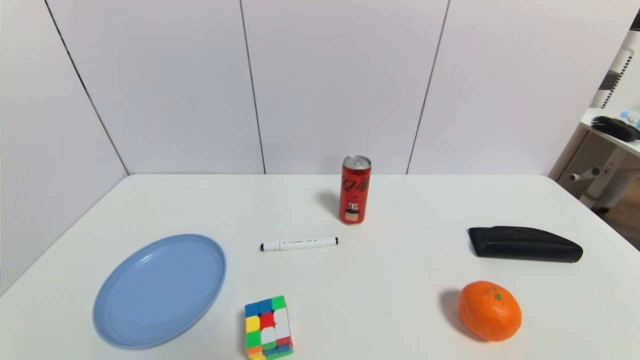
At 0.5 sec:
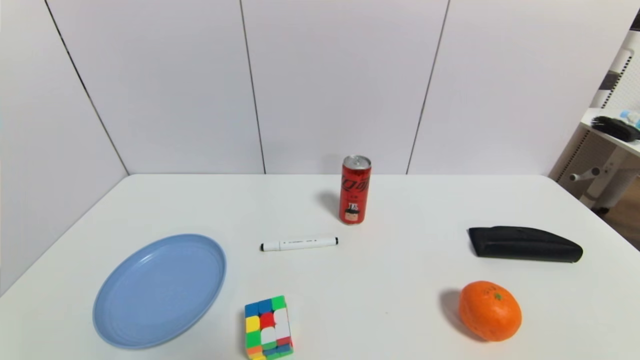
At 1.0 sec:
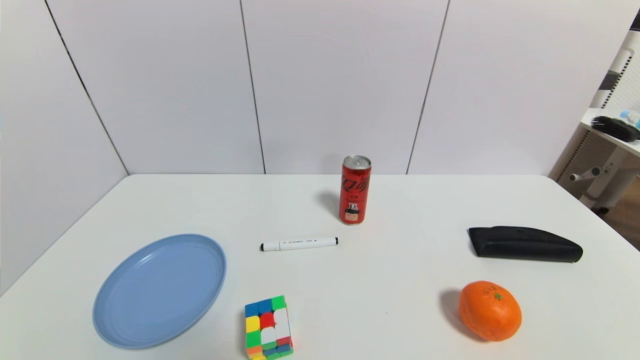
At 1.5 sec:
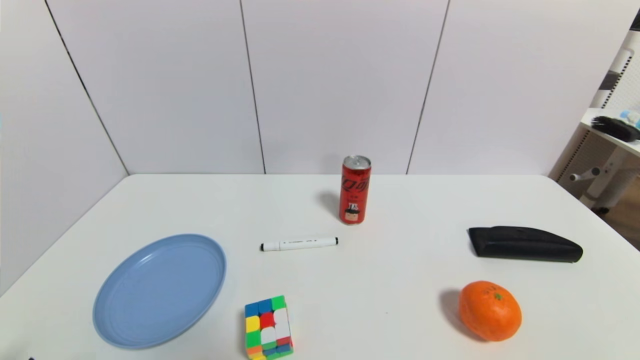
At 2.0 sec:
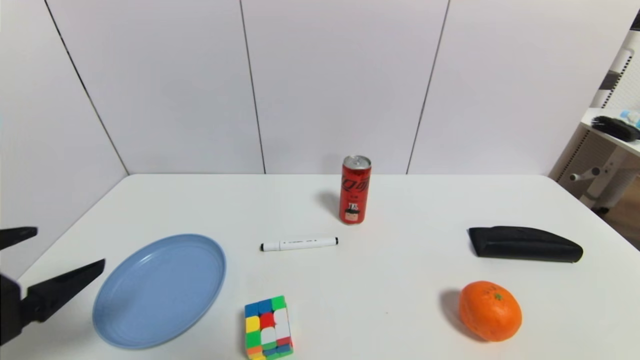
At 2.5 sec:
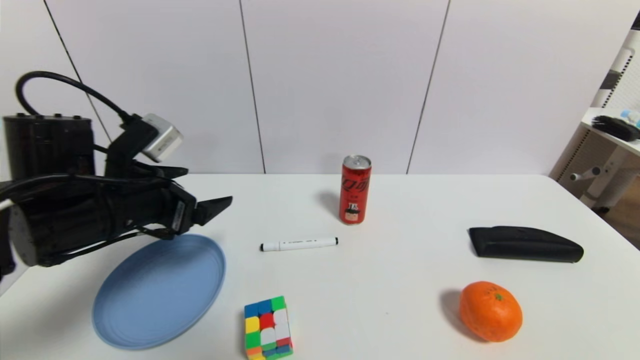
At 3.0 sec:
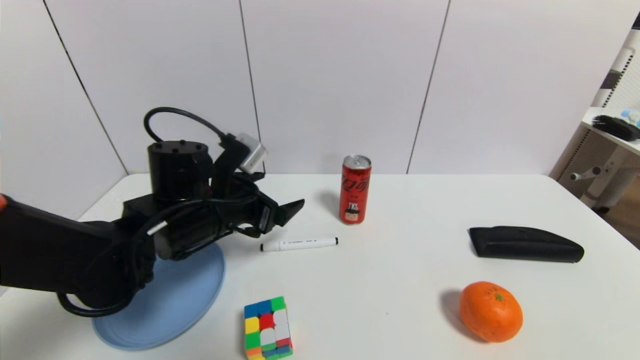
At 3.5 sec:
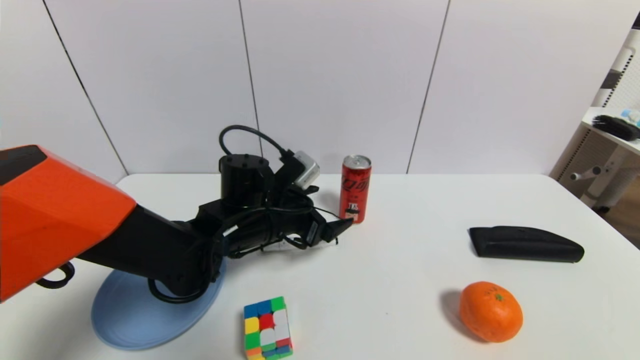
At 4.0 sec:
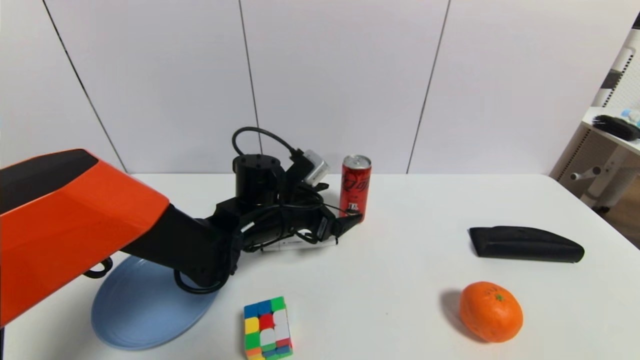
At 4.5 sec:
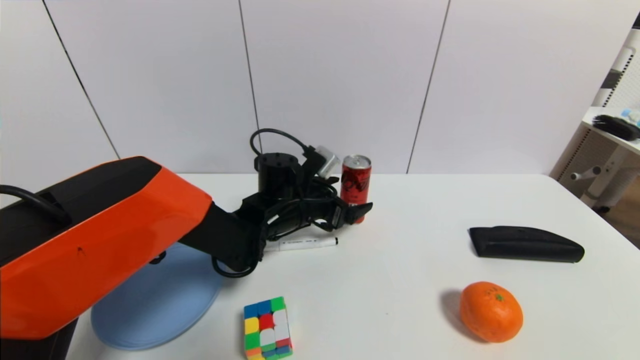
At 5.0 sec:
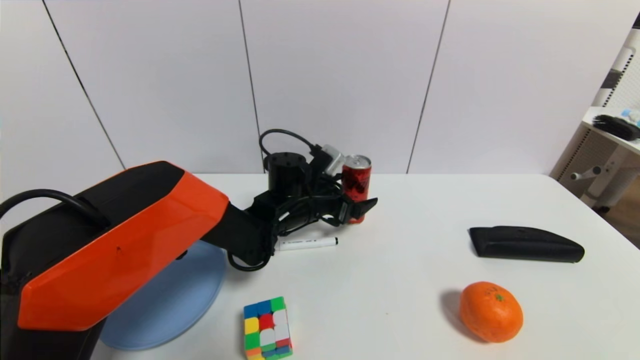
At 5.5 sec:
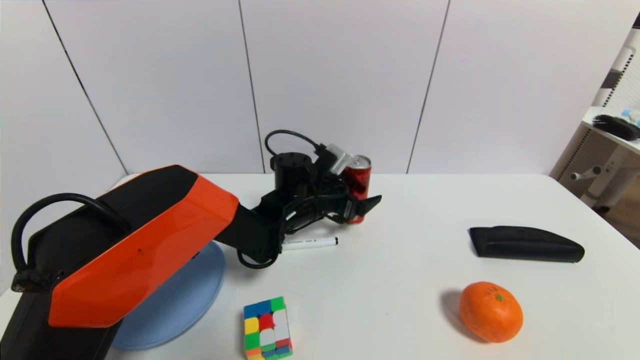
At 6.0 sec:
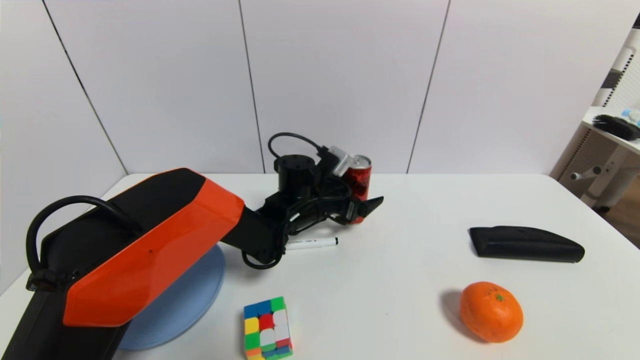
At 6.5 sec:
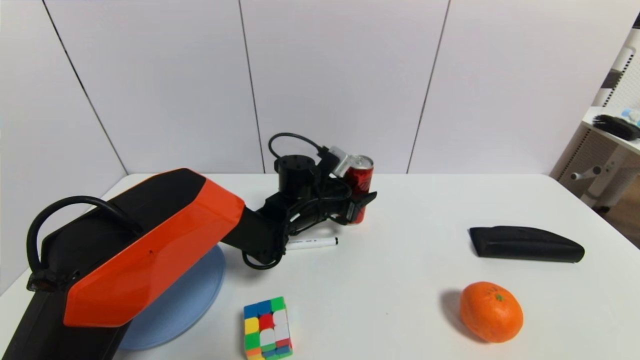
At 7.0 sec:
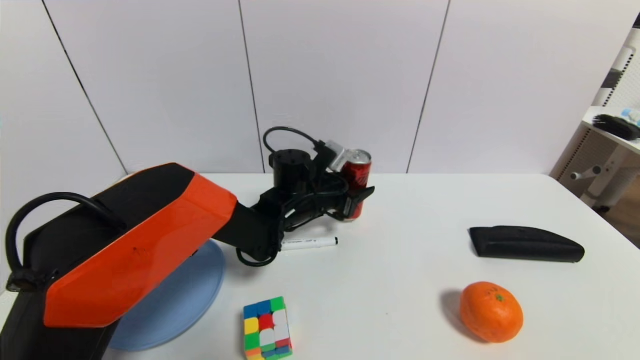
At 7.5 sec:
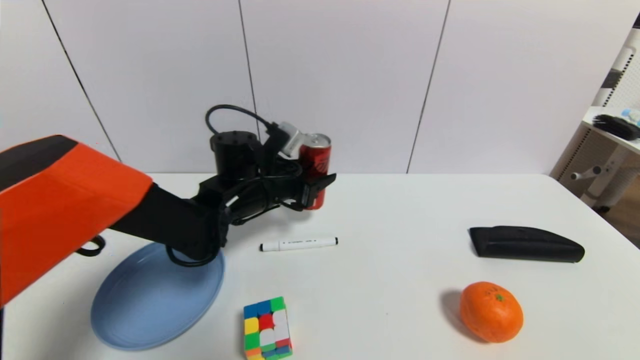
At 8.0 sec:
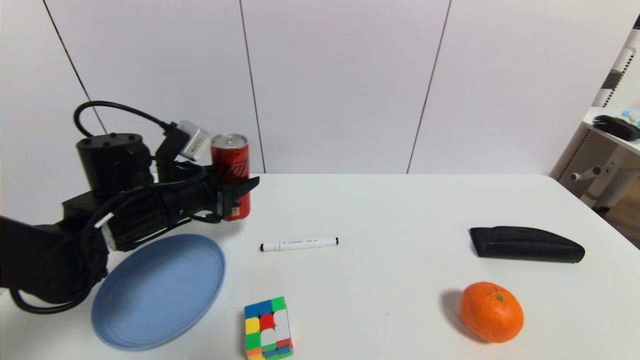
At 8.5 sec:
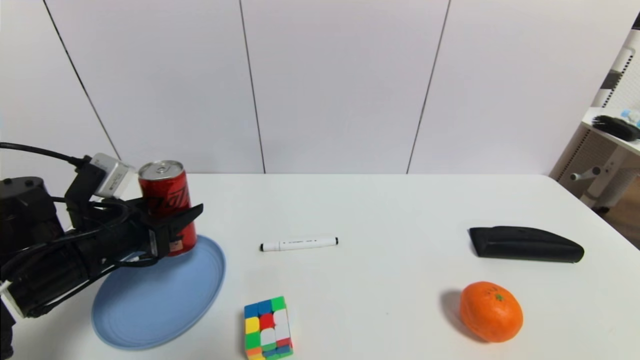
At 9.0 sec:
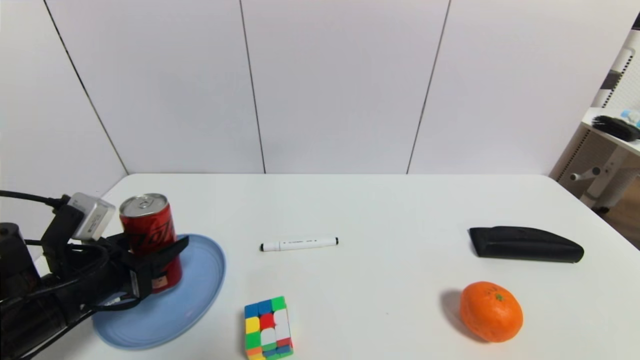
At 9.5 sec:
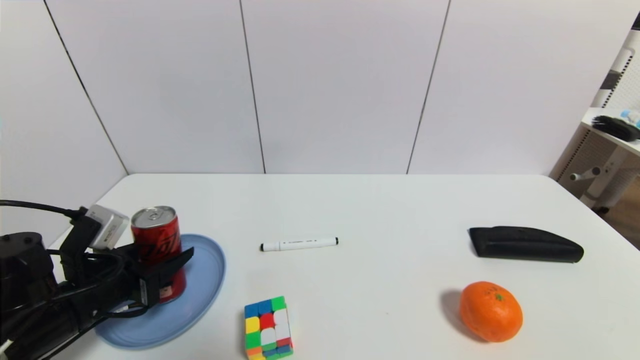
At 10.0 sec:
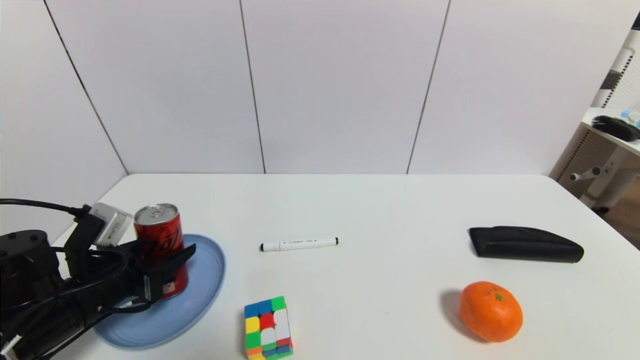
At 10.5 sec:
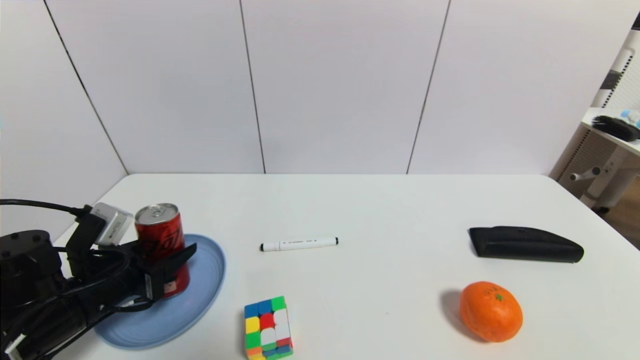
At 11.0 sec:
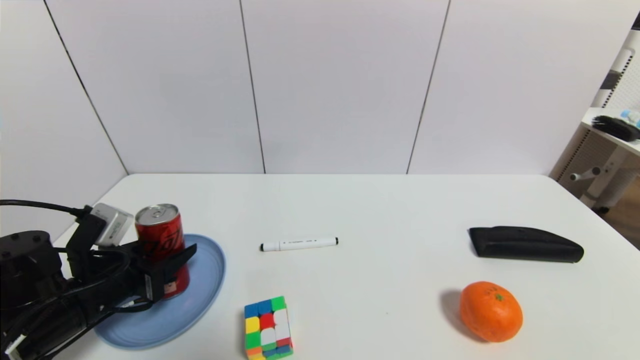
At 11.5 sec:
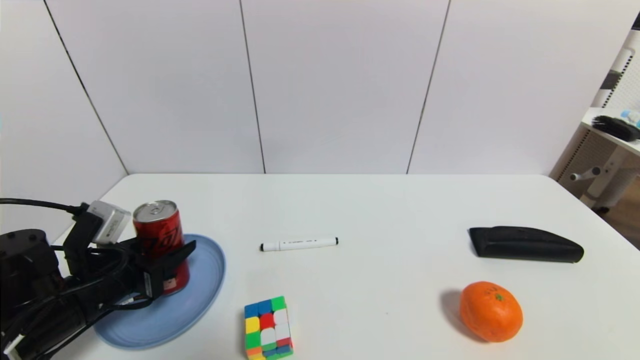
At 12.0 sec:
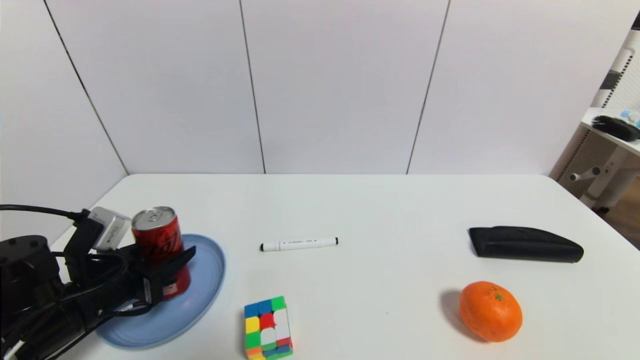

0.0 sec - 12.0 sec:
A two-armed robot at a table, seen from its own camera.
Task of the whole recording: use a gripper to pick the target object and place on the blue plate.
Step, 0.0 sec - 6.5 sec: Grasp the coke with the left gripper.
0.0 sec - 2.0 sec: The left gripper goes approximately 20 cm upward and forward.
2.0 sec - 4.0 sec: The left gripper goes about 35 cm forward, to the right and downward.
4.0 sec - 6.0 sec: The left gripper travels forward and to the right by some 10 cm.
6.0 sec - 8.0 sec: The left gripper is displaced to the left and backward by approximately 20 cm, and closes up.
8.0 sec - 10.0 sec: The left gripper moves backward, downward and to the left, approximately 15 cm.
10.0 sec - 12.0 sec: Neither gripper changes place.

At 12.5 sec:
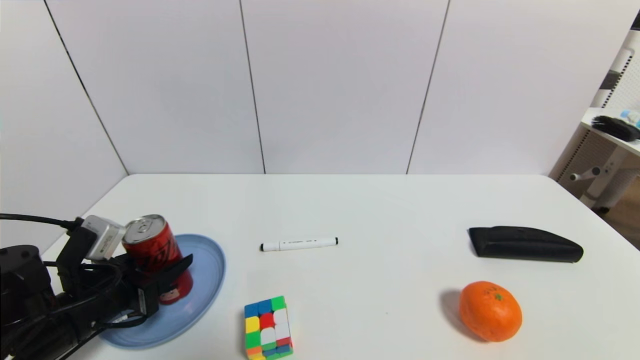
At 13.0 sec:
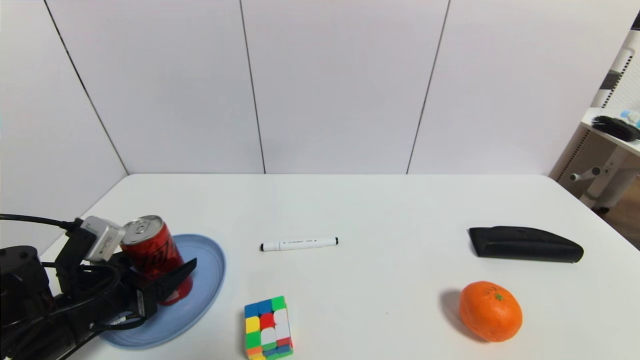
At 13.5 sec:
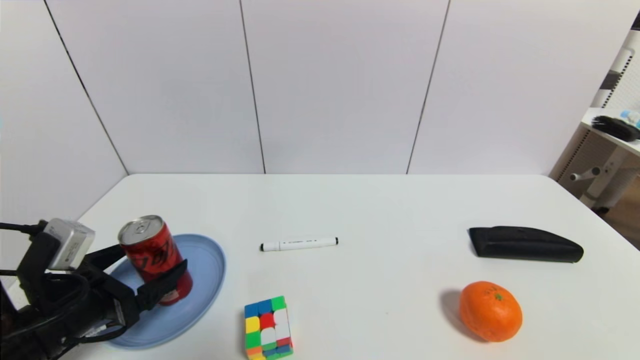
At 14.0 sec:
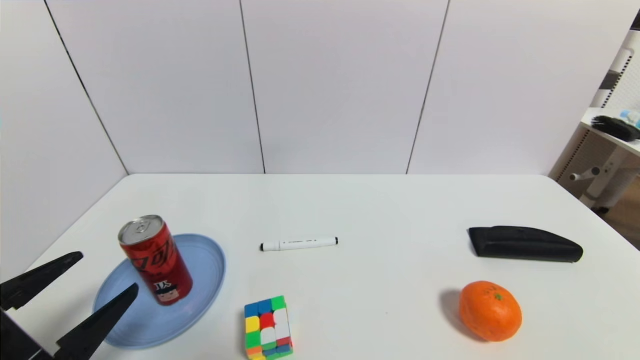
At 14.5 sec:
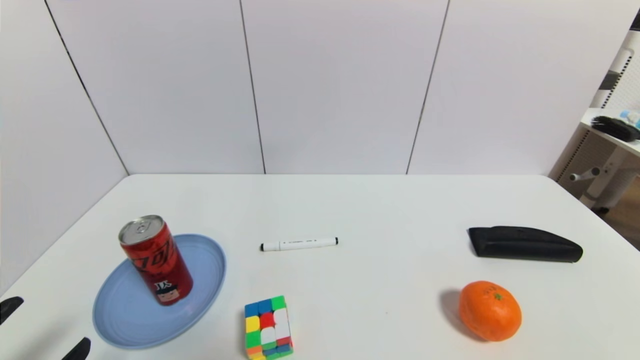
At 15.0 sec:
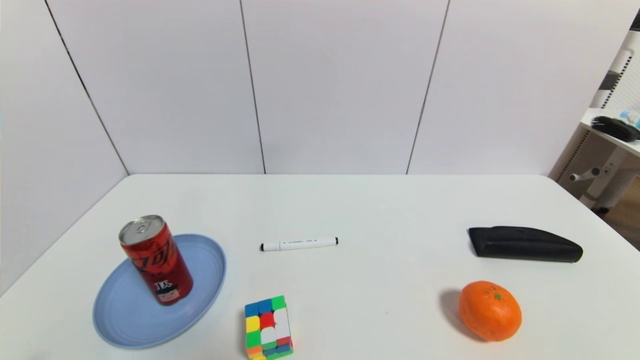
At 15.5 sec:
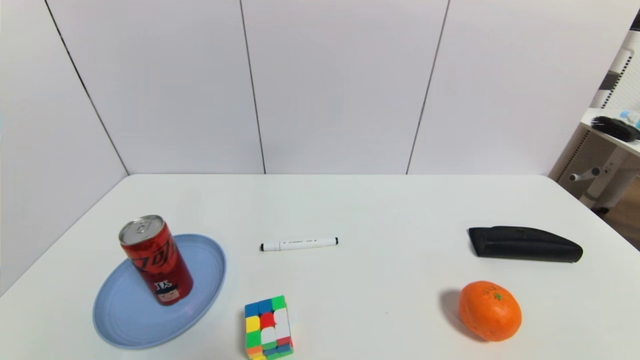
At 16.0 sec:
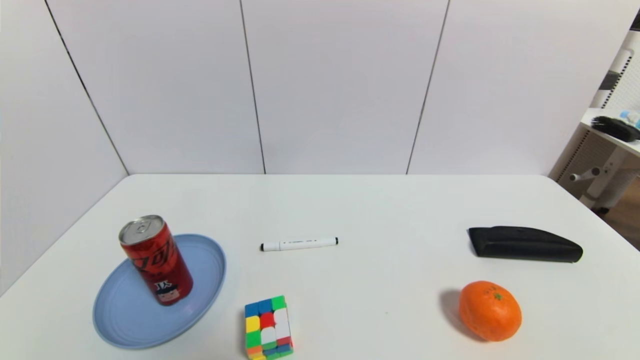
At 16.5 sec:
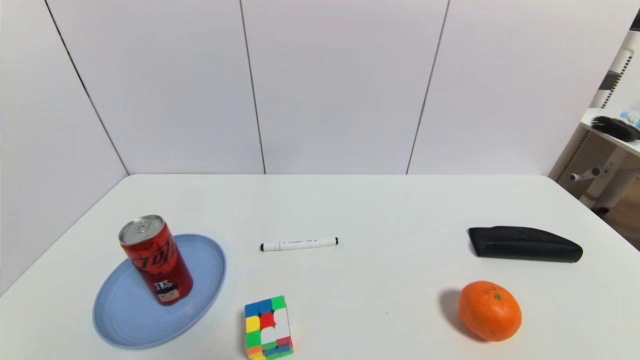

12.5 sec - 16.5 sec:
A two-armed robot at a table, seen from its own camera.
Task of the whole recording: use a gripper to pick the target object and place on the blue plate.
12.5 sec - 14.5 sec: The left gripper shifts approximately 15 cm backward, and opens.
14.5 sec - 16.5 sec: The left gripper shifts roughly 5 cm downward.
